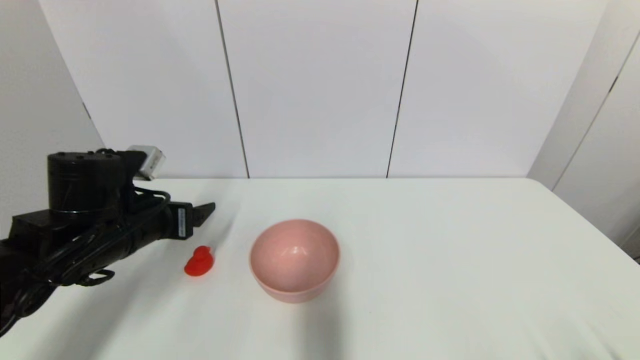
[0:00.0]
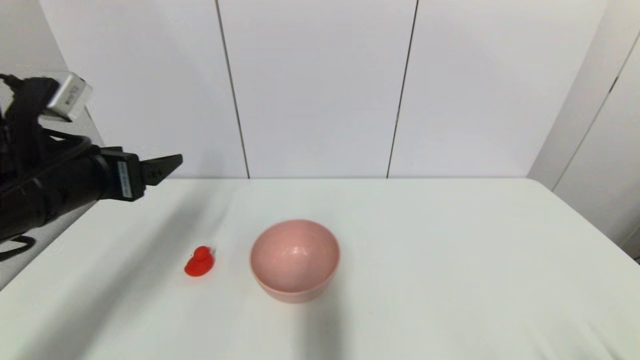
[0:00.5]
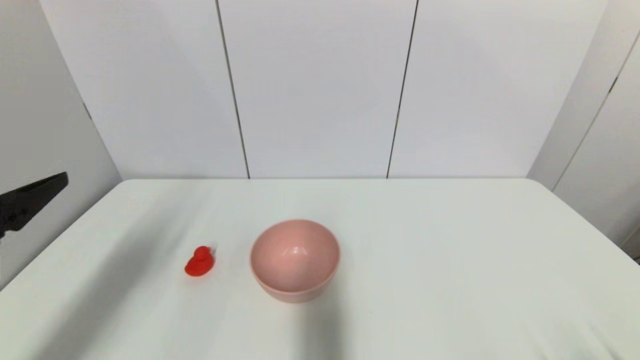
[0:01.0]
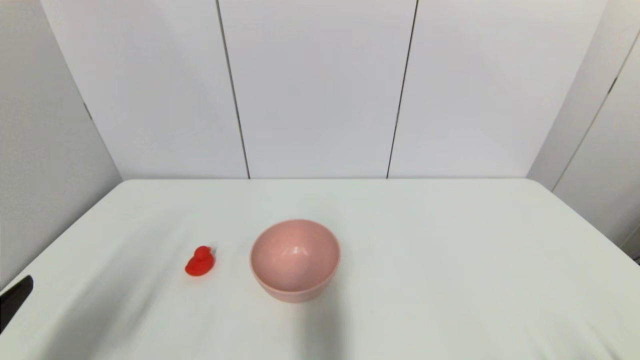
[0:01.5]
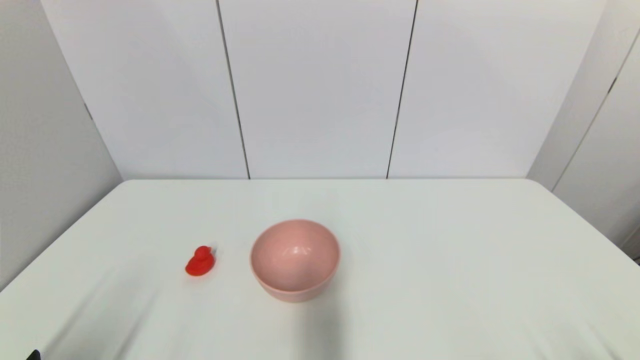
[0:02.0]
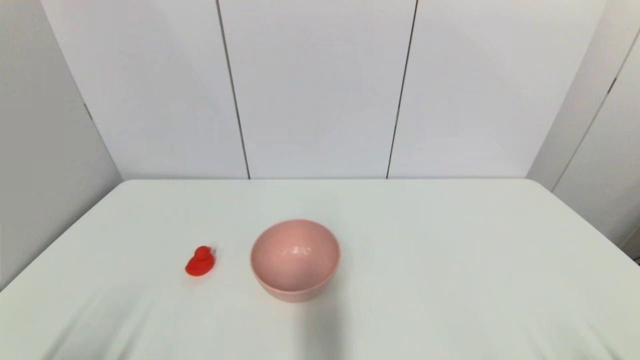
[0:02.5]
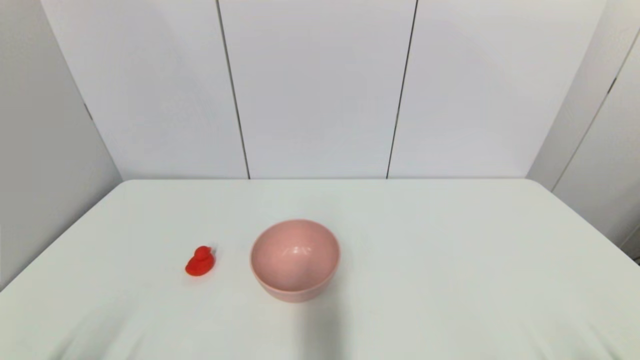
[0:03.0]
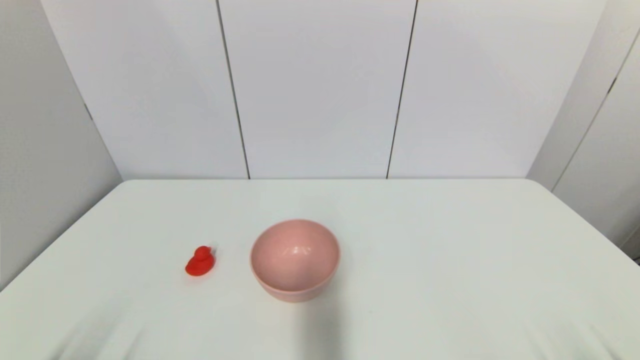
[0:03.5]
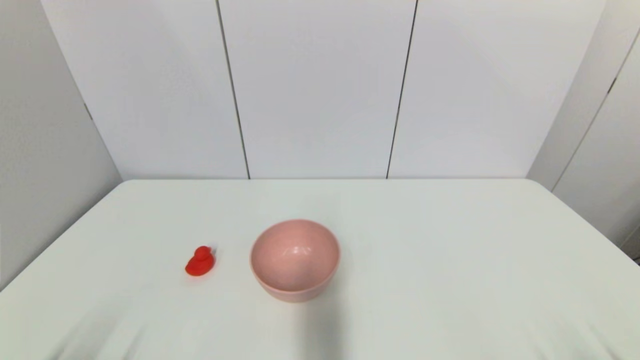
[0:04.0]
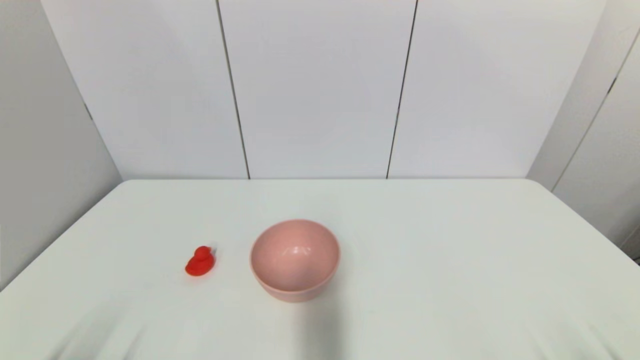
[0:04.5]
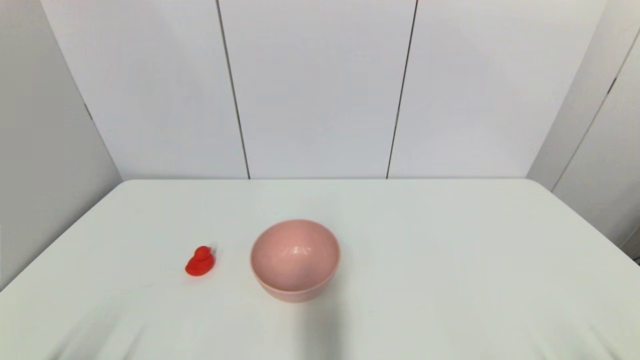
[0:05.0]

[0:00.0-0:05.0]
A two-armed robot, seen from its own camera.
0:00.0 to 0:02.5: The left gripper moves backward, some 25 cm.
